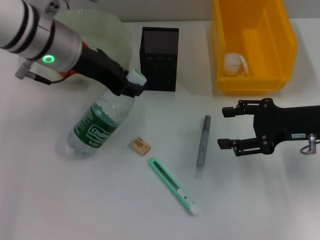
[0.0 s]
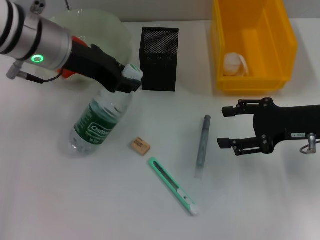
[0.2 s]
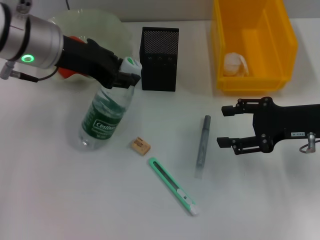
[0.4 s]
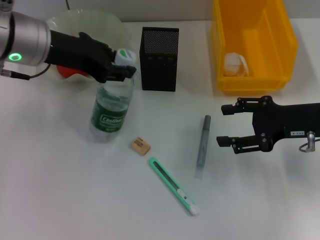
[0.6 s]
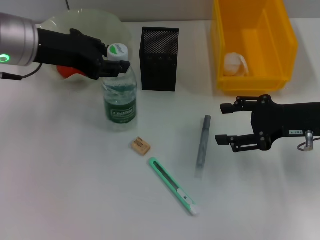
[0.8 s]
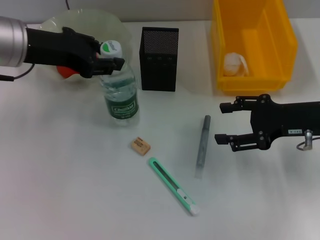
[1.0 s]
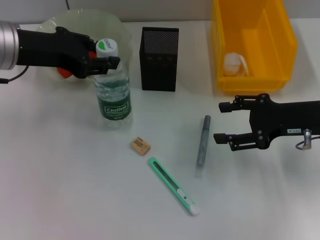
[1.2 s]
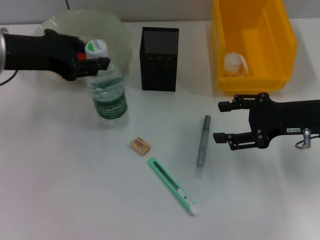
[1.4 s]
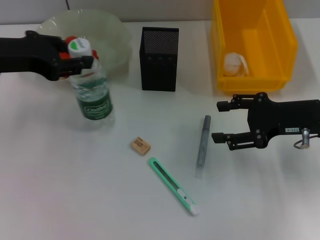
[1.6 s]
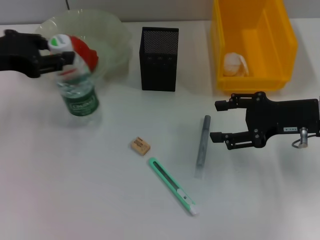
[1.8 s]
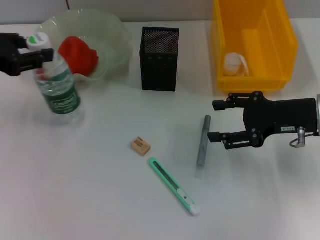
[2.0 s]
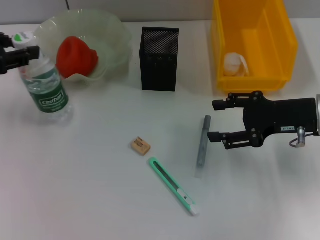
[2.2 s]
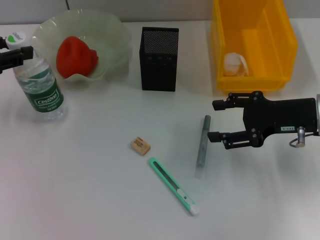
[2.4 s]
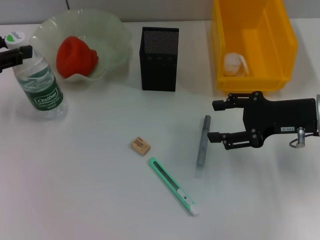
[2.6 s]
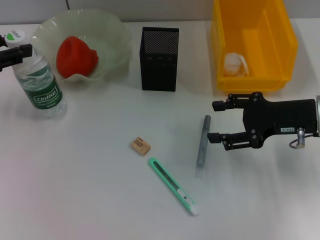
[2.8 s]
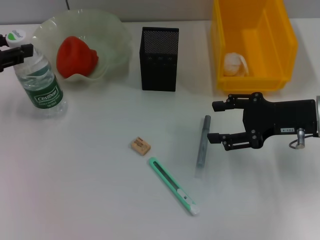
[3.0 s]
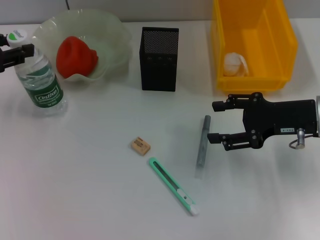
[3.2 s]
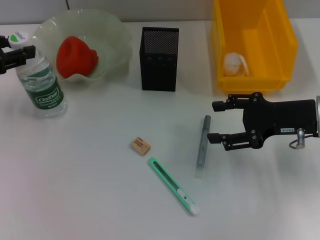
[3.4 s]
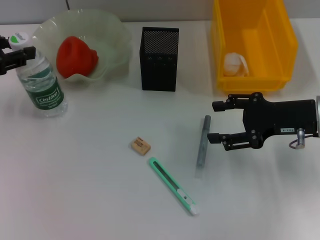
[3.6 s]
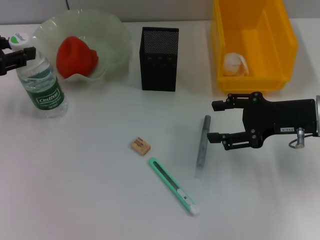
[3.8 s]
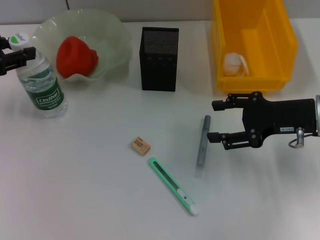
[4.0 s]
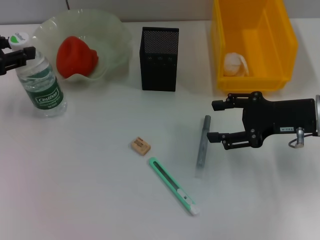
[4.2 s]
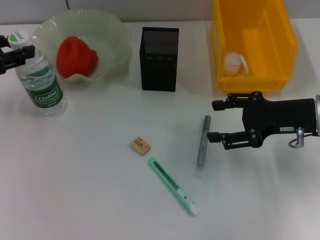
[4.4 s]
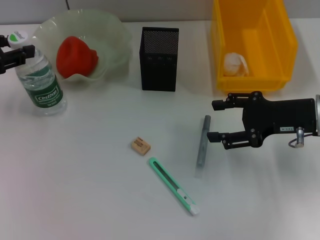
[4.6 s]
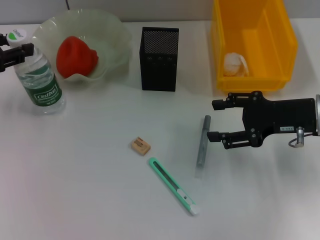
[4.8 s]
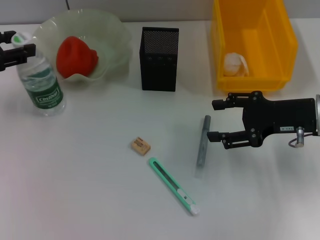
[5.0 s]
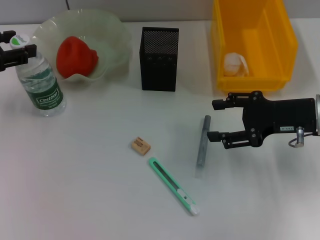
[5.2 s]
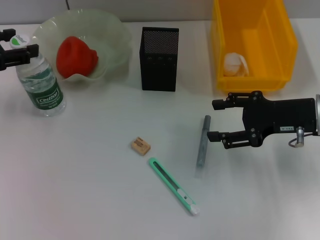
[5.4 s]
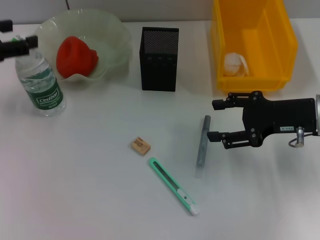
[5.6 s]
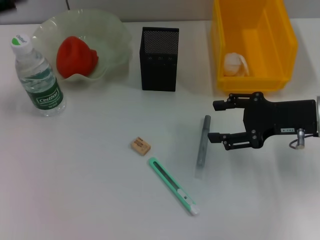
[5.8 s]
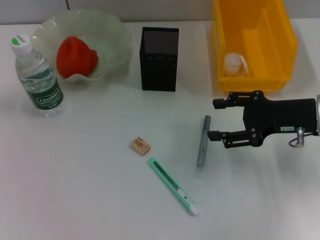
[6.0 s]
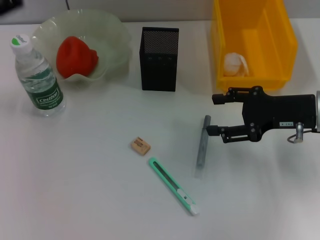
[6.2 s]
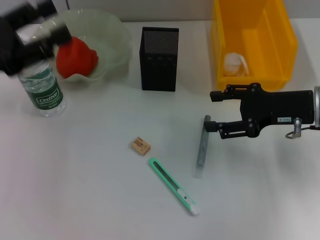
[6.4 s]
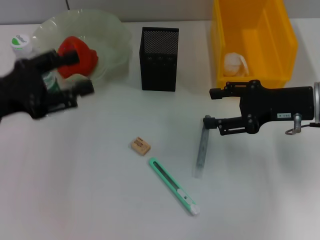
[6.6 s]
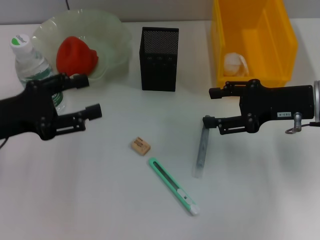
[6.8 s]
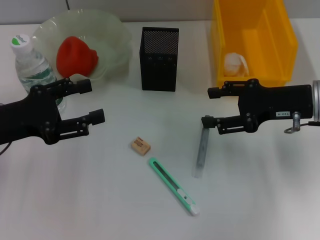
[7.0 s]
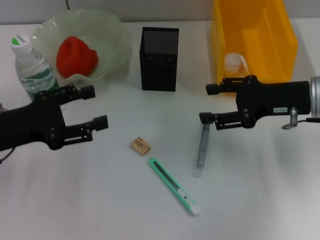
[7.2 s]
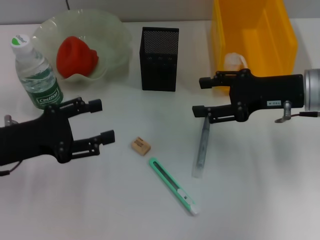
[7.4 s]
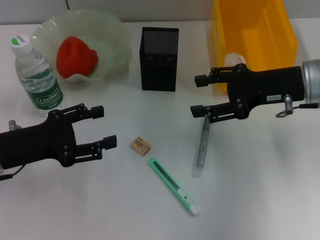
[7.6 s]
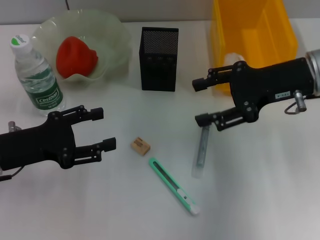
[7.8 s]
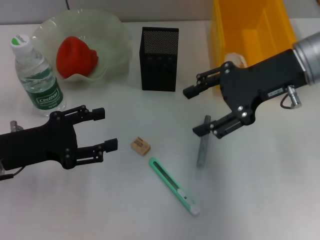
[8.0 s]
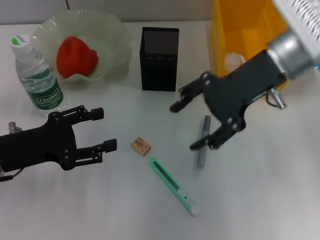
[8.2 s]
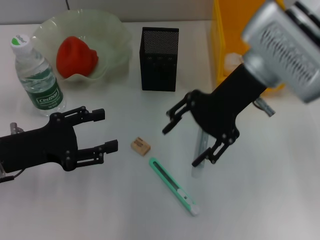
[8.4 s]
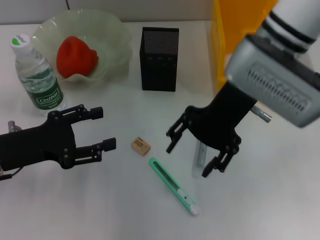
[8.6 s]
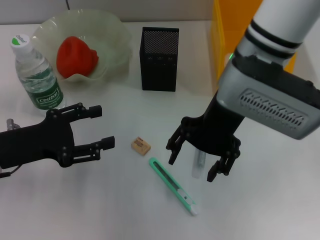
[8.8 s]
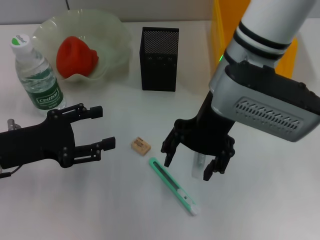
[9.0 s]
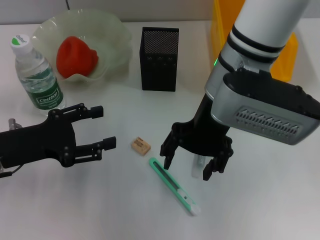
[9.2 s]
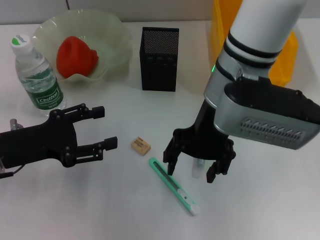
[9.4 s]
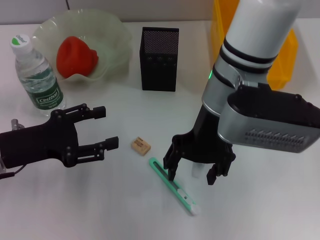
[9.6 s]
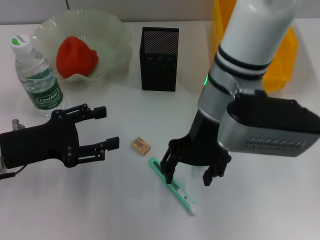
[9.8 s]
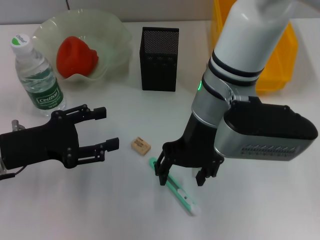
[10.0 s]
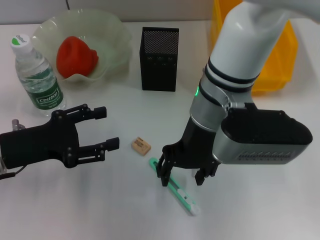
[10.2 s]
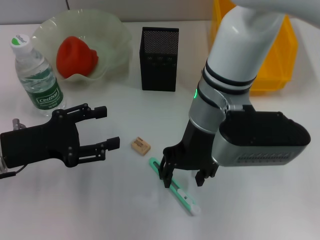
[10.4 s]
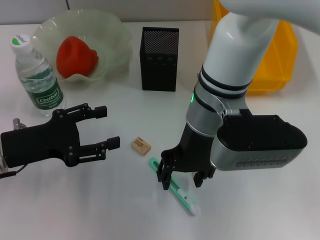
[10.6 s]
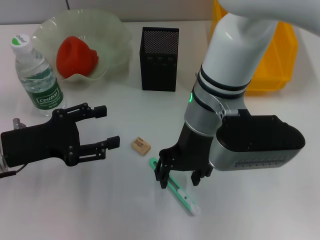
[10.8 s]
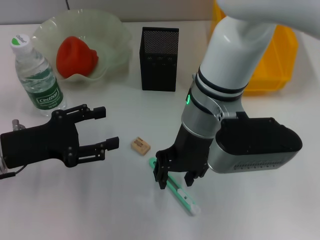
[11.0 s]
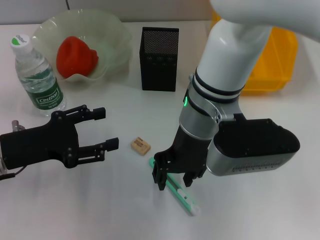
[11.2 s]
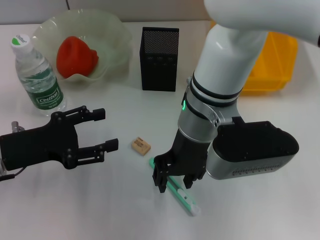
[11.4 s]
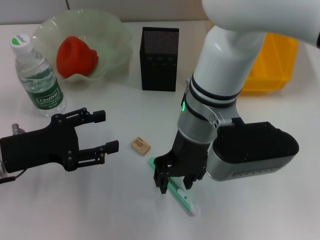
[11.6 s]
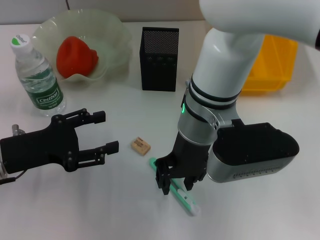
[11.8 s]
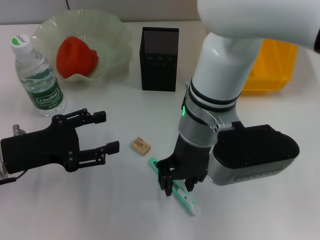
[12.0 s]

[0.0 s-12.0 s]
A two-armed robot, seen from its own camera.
Step, 0.0 to 5.2 s: Place the water bottle on the table with the left hand.
0.0 to 1.6 s: The left gripper heads to the left, covering roughly 10 cm.
1.6 to 3.0 s: The left gripper is displaced to the left by about 10 cm.
3.0 to 4.4 s: Neither gripper changes place.
4.4 to 6.0 s: The left gripper moves approximately 5 cm, and opens its fingers.
6.0 to 7.6 s: The left gripper moves downward, roughly 15 cm. Meanwhile the right gripper changes place by some 5 cm.
7.6 to 9.0 s: The right gripper goes about 15 cm to the left.

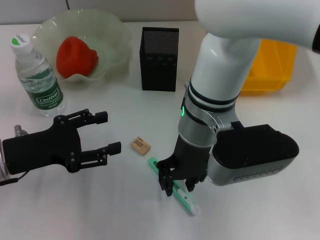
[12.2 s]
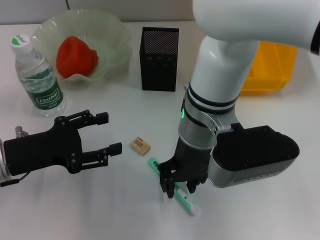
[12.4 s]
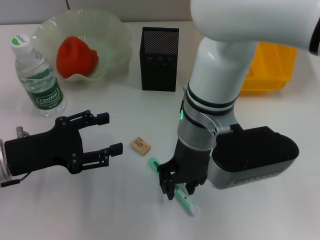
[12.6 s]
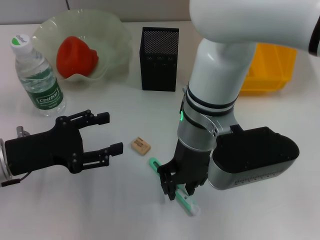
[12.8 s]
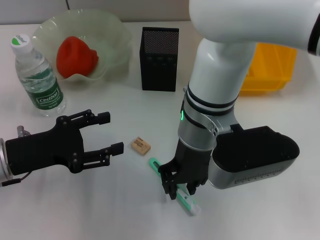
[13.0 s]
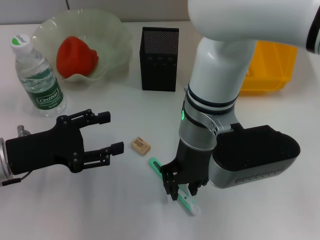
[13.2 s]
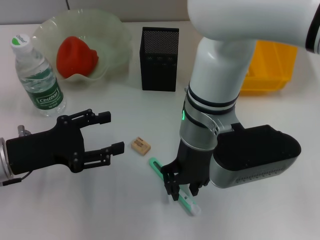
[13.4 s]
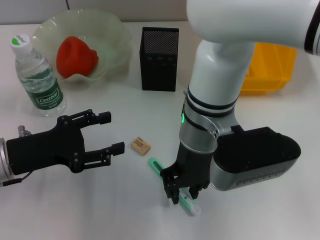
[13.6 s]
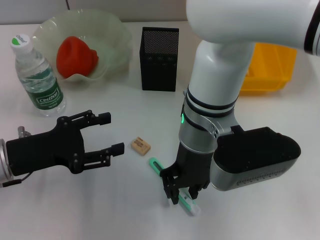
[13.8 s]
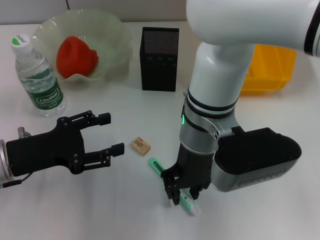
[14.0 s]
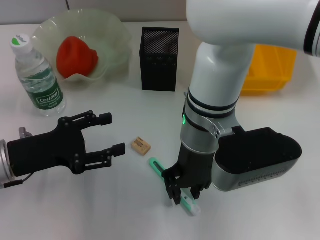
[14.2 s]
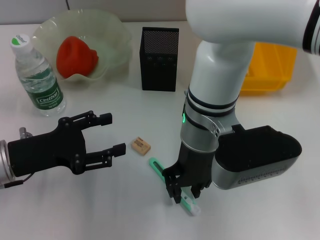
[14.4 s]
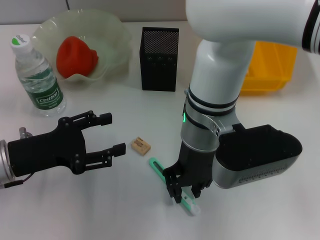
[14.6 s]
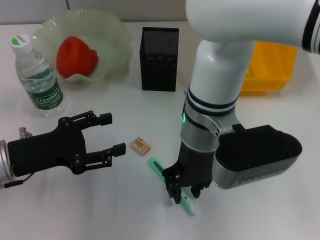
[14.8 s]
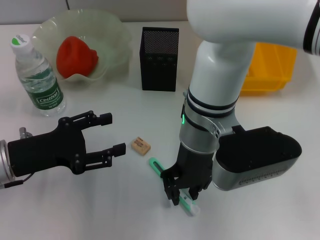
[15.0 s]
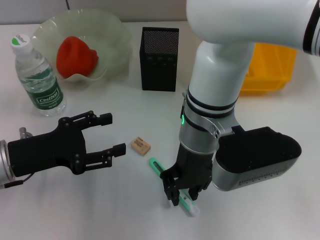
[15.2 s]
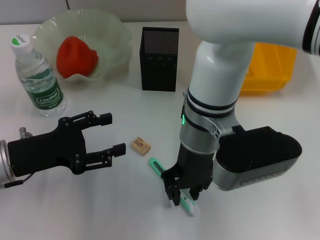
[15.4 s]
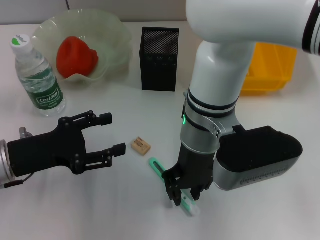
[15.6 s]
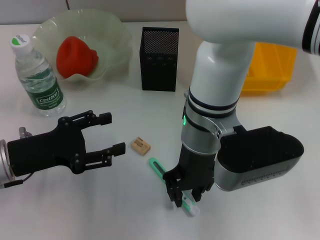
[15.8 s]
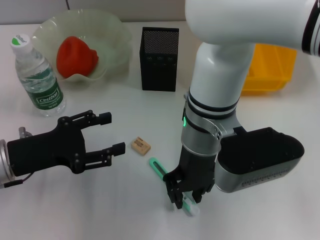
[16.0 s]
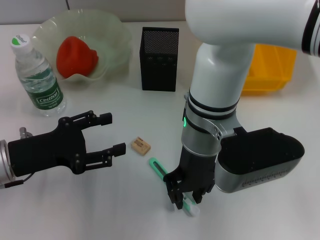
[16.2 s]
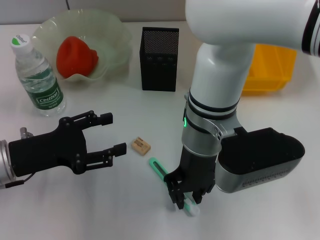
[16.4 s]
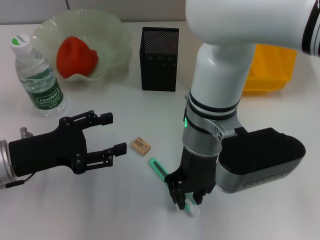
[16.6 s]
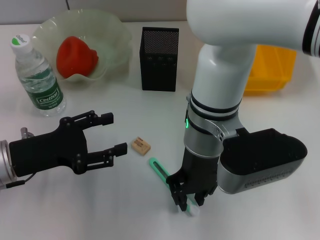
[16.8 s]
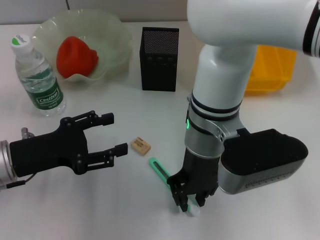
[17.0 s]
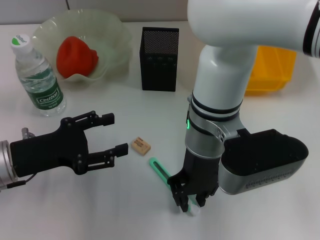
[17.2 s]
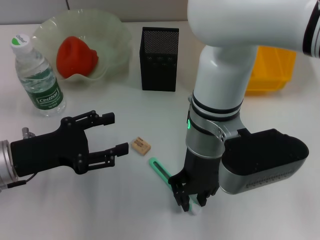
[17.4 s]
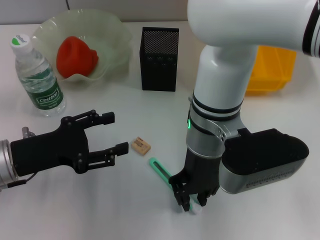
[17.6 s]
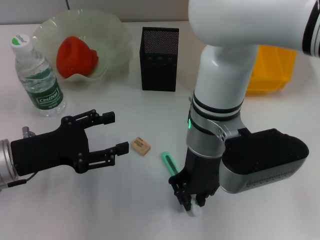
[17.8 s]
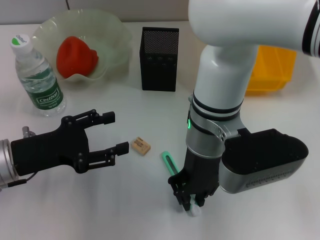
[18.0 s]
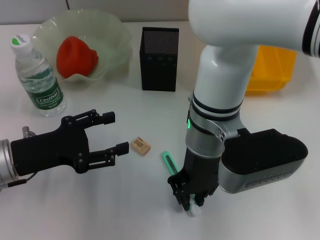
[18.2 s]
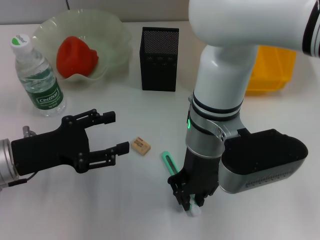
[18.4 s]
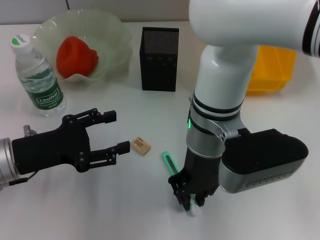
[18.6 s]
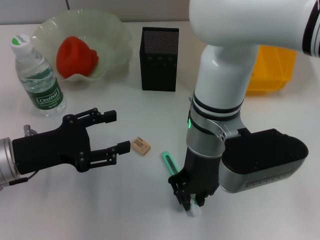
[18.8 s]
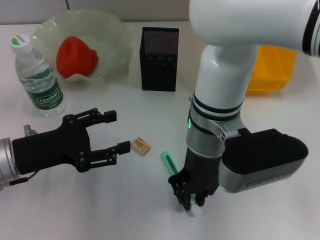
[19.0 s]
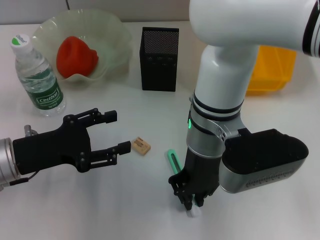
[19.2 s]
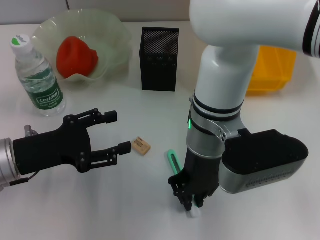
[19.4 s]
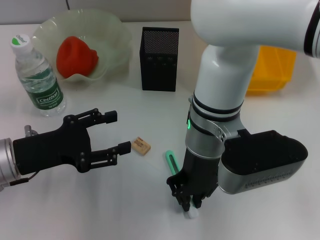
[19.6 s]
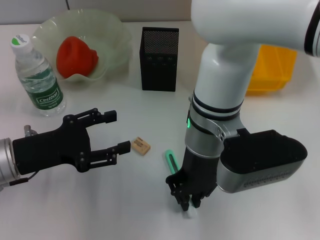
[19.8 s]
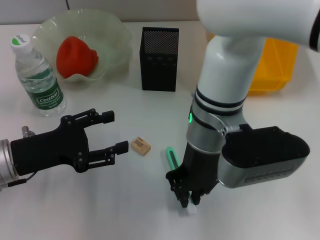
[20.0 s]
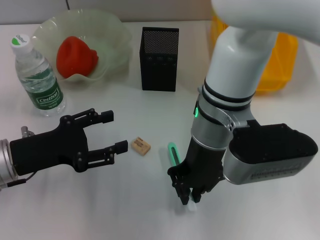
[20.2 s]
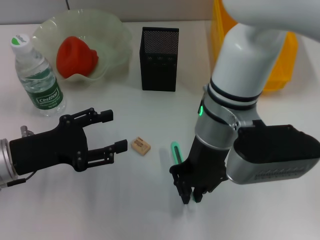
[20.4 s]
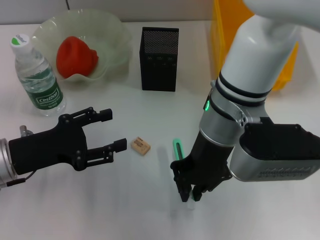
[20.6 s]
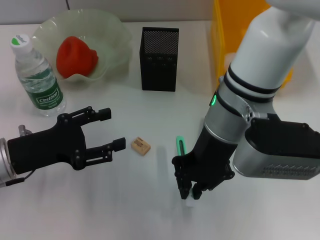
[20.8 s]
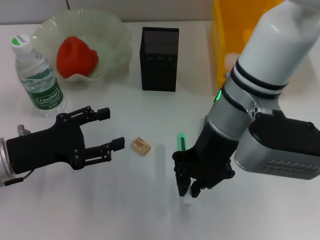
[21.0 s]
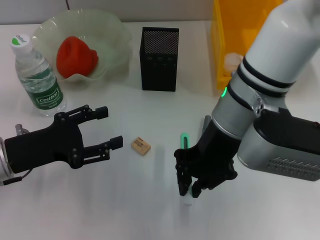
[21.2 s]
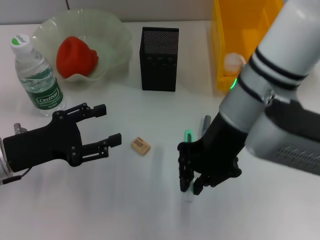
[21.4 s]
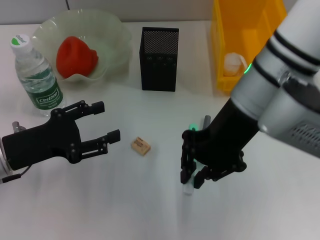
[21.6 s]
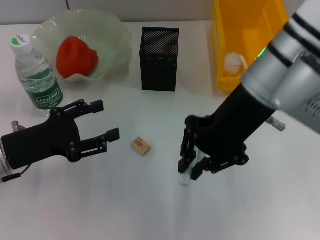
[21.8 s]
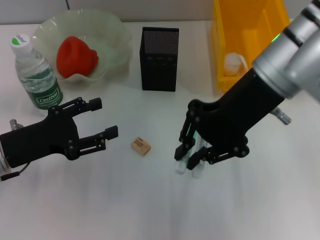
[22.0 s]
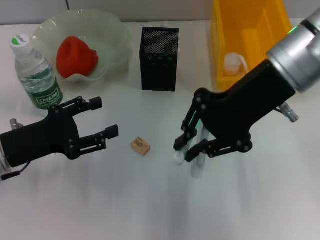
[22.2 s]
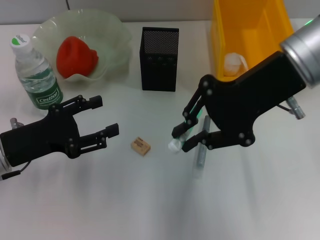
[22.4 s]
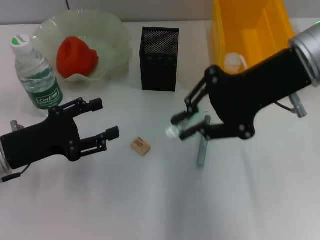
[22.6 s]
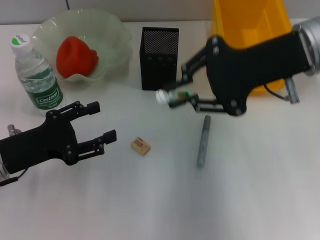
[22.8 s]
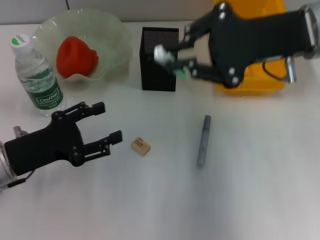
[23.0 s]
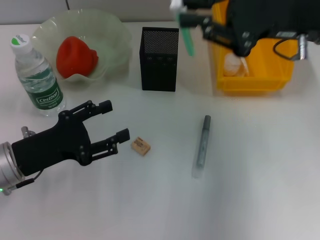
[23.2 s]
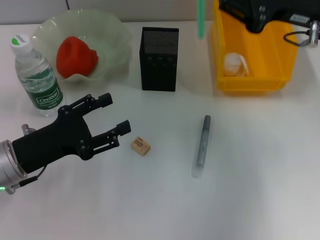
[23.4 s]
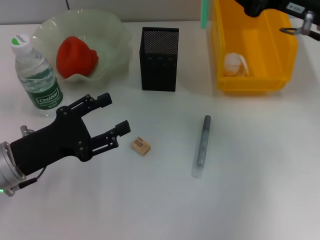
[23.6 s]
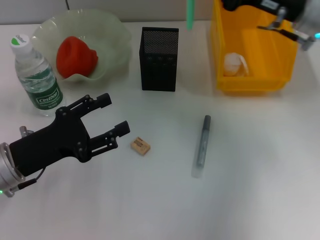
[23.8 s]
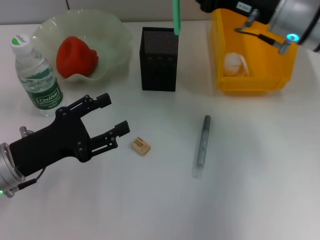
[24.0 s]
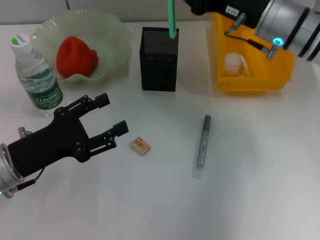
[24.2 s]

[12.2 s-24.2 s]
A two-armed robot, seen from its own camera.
Step, 12.2 to 19.6 s: Grab the blue utility knife with the right hand.
12.2 to 15.2 s: Both grippers stay put.
15.2 to 19.8 s: The two grippers keep their place.
19.8 to 21.2 s: The right gripper shifts by about 5 cm.
21.2 to 22.6 s: The right gripper moves to the right, some 10 cm.
22.6 to 24.2 s: The right gripper heads downward and forward, covering some 10 cm.
